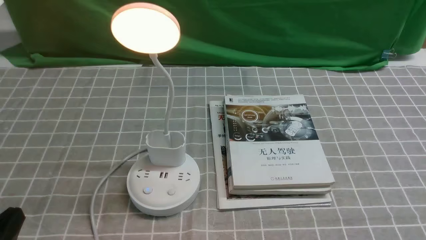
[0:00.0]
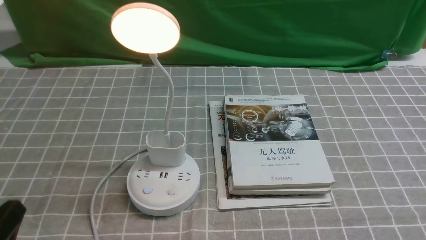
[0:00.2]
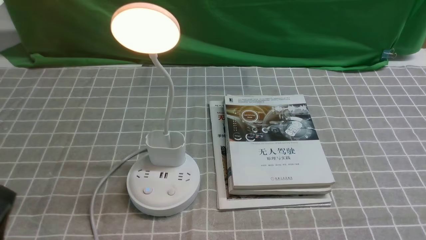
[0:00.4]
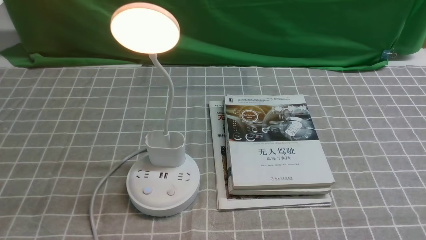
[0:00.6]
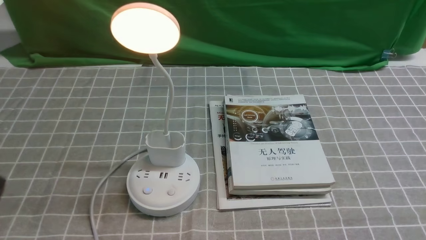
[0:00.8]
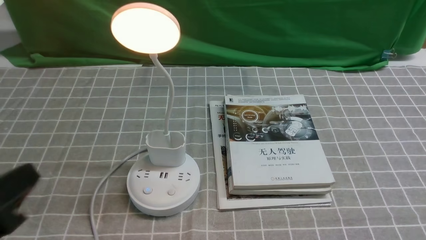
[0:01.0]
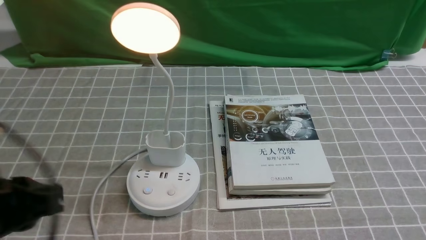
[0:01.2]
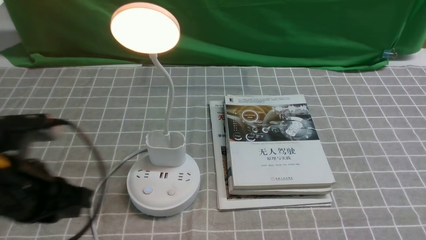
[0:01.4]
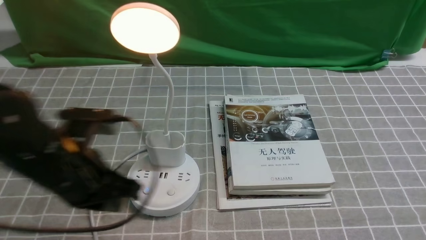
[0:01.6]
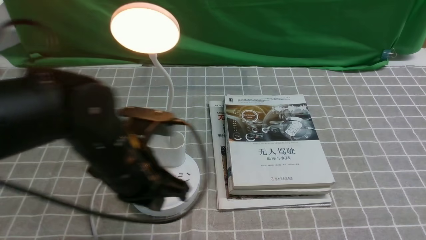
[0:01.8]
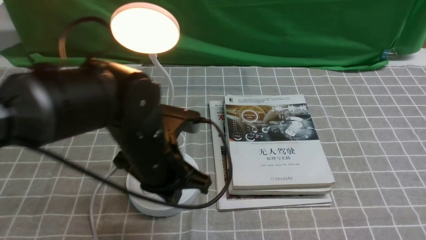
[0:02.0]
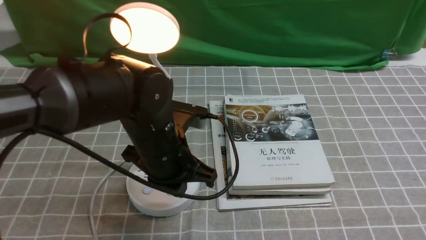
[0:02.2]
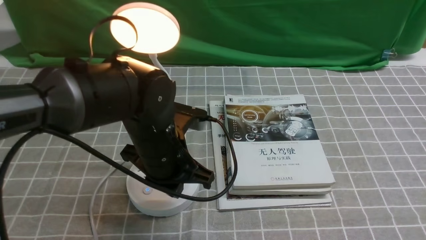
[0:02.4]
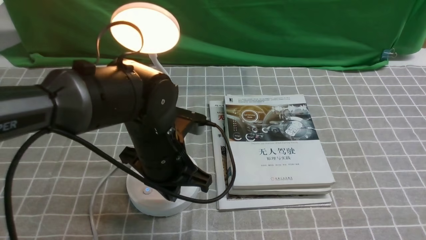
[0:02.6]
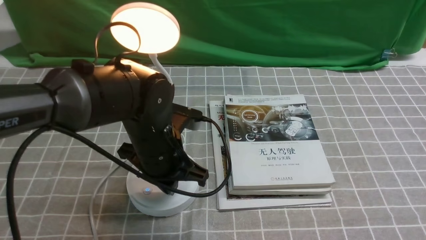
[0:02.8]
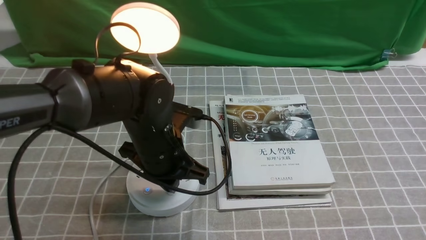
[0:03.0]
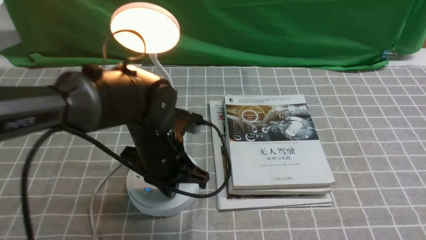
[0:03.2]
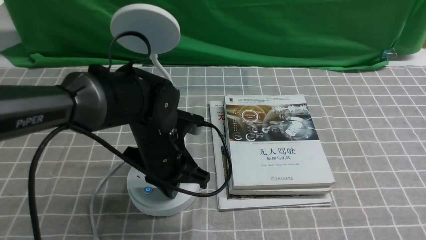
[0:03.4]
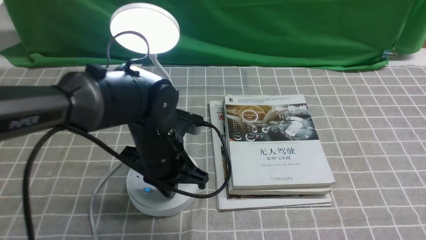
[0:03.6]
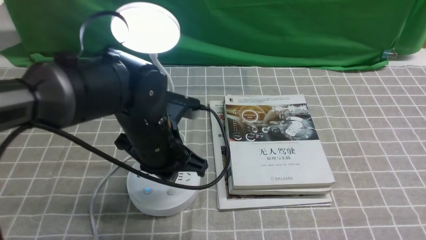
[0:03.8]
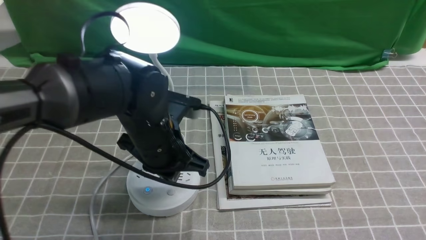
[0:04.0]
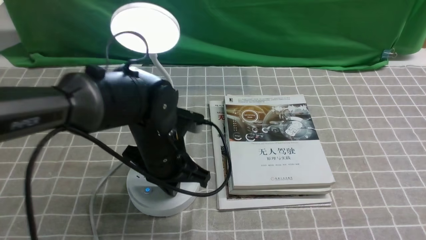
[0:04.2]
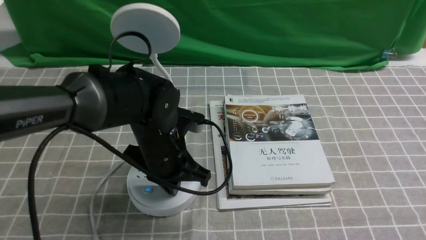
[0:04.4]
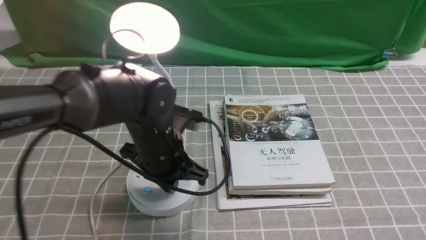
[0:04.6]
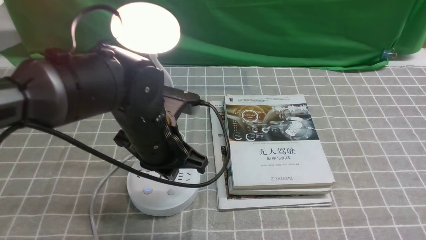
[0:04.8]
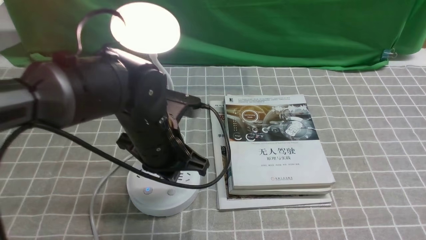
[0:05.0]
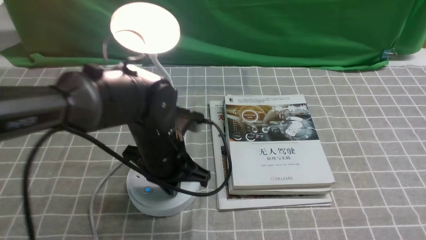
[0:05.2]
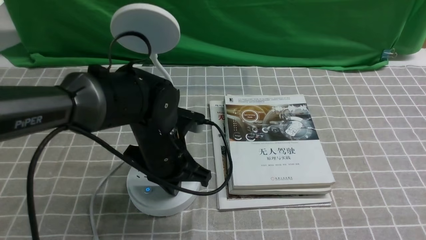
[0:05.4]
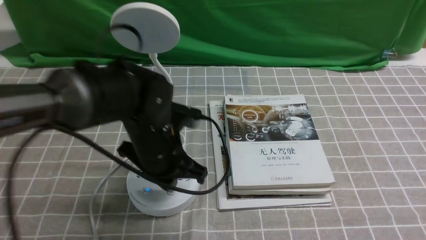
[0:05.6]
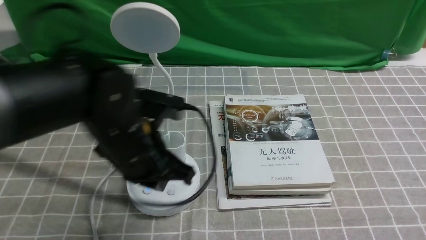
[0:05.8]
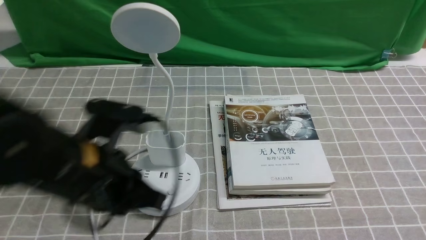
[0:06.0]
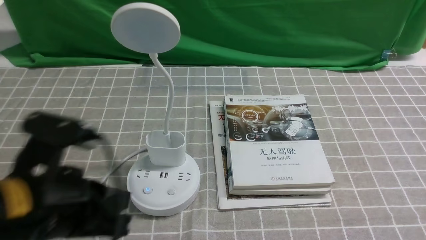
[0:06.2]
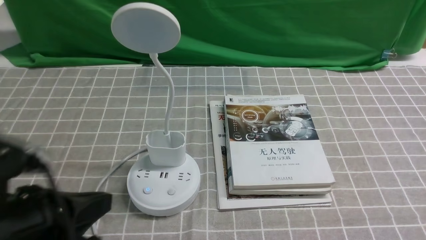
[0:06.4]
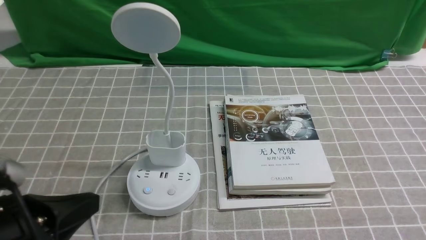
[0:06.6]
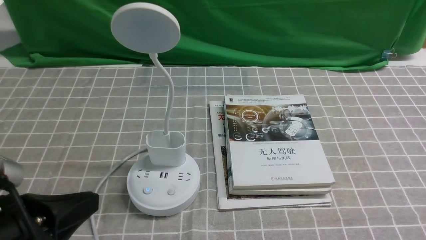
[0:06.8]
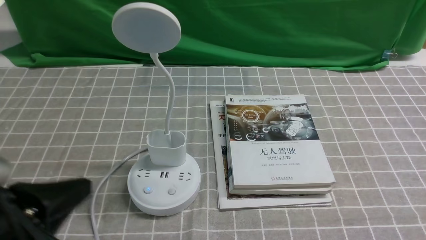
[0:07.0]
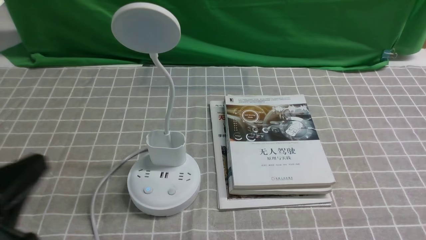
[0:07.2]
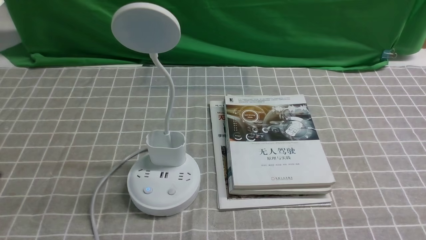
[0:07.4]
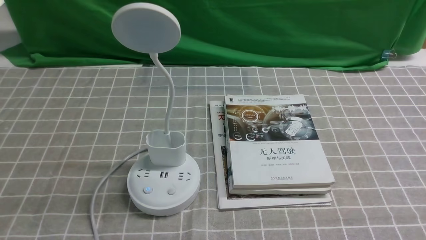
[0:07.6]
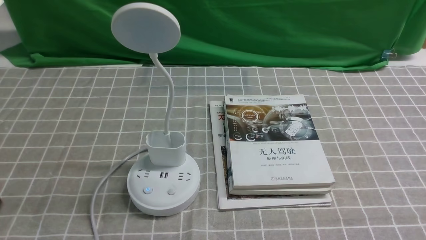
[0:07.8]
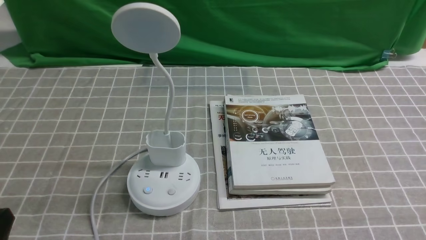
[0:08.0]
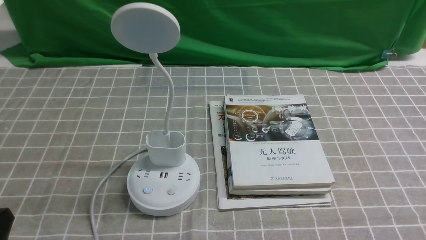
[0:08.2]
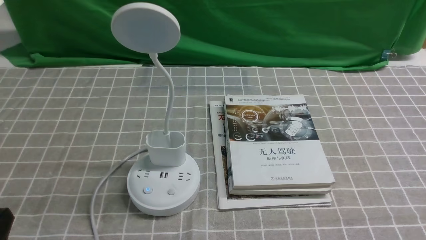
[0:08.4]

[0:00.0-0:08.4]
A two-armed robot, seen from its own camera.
Task of the whole recording: turn off the desk lamp on the grey coffee tablecloth by hand.
Step, 0:00.0 to 0:05.6: use the left arm to press the button switch on the lamp holder.
0:00.0 to 0:01.4: The left gripper heads forward and upward, covering about 15 cm, and closes up.
0:01.4 to 0:02.8: The left gripper shifts about 20 cm to the right, forward and downward, and closes up.
0:02.8 to 0:04.2: The left gripper opens its fingers.
0:04.2 to 0:05.6: The grippers stay close to where they were, moving slightly.
0:05.6 to 0:07.0: The left gripper is displaced backward and to the left by some 25 cm.
0:07.0 to 0:08.4: The left gripper is displaced downward by roughly 10 cm.
